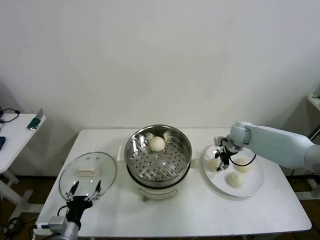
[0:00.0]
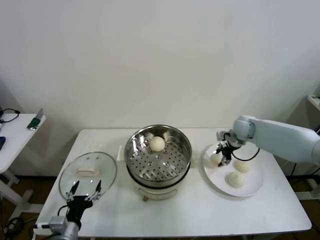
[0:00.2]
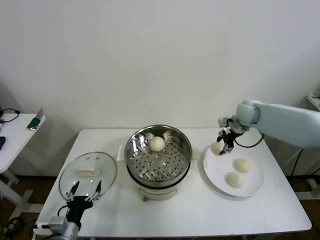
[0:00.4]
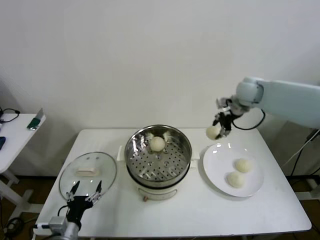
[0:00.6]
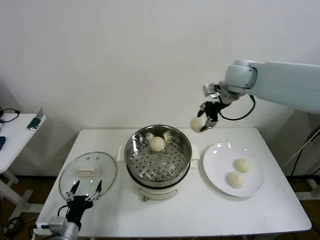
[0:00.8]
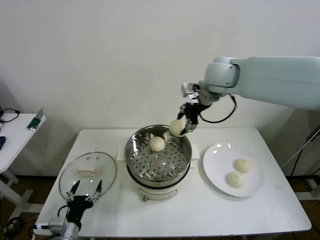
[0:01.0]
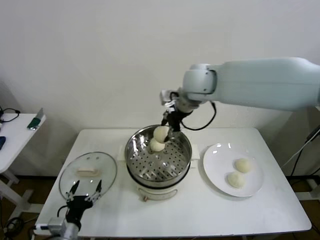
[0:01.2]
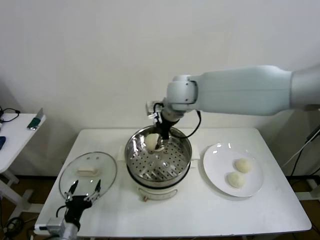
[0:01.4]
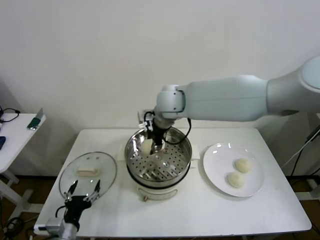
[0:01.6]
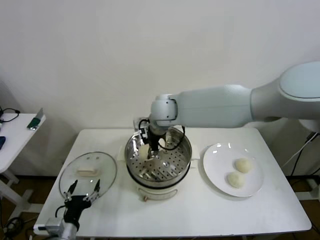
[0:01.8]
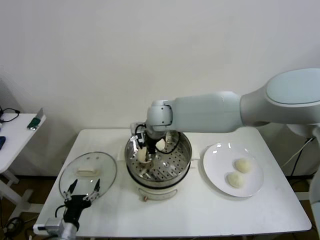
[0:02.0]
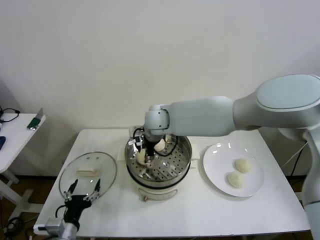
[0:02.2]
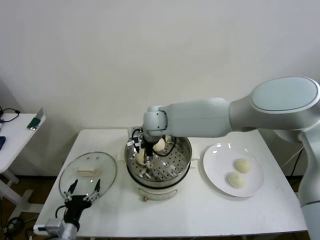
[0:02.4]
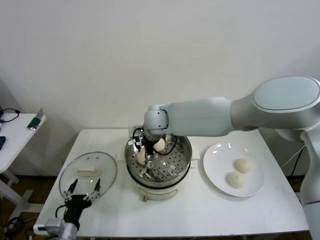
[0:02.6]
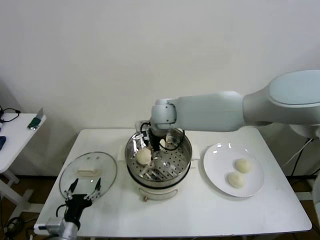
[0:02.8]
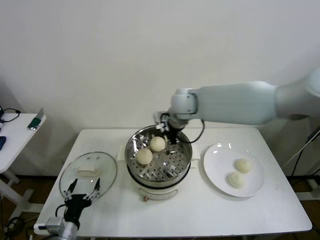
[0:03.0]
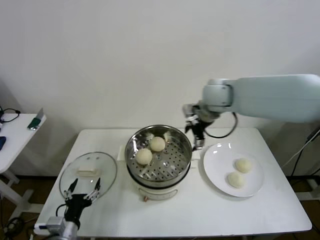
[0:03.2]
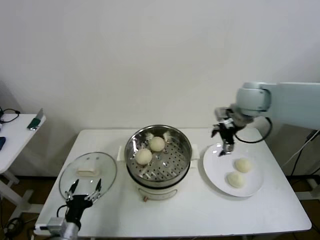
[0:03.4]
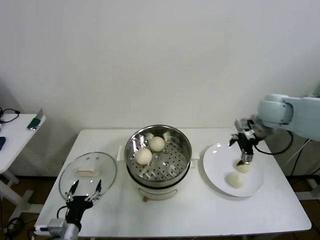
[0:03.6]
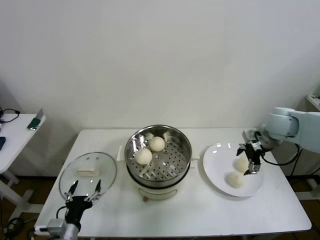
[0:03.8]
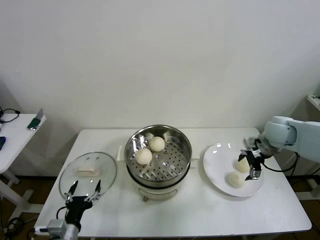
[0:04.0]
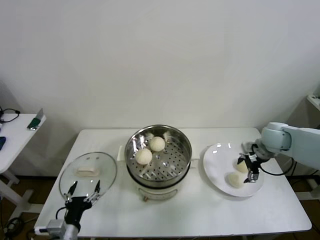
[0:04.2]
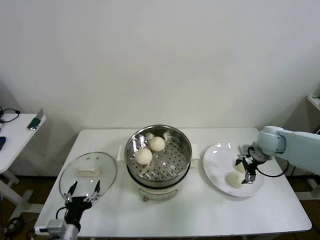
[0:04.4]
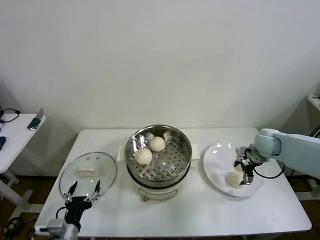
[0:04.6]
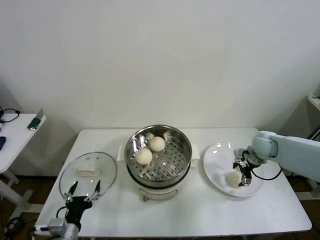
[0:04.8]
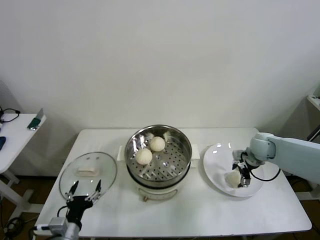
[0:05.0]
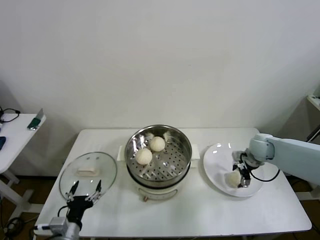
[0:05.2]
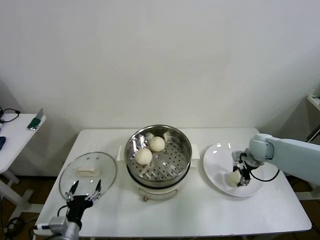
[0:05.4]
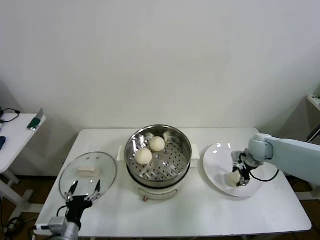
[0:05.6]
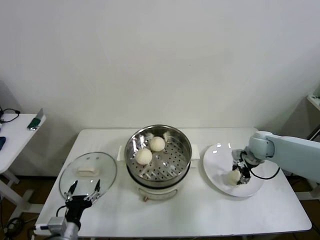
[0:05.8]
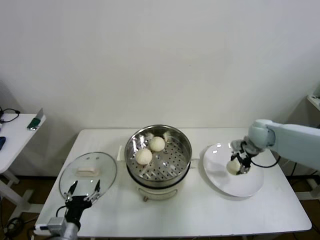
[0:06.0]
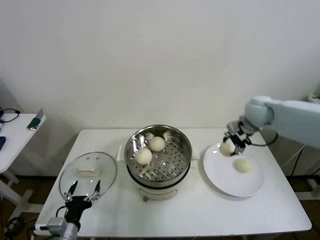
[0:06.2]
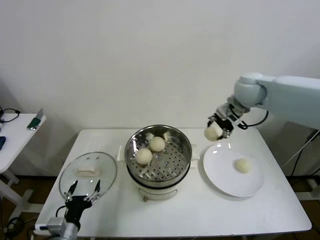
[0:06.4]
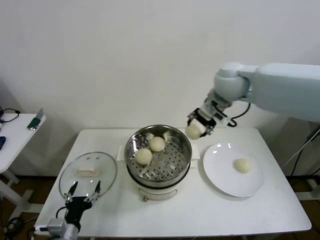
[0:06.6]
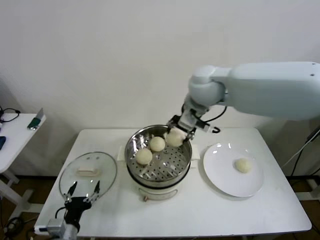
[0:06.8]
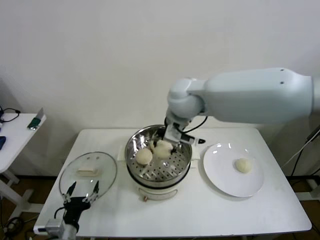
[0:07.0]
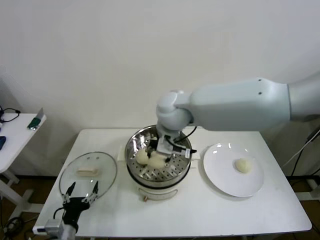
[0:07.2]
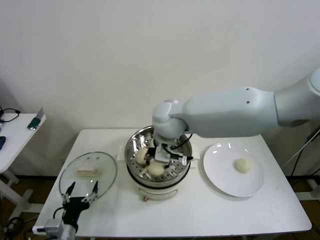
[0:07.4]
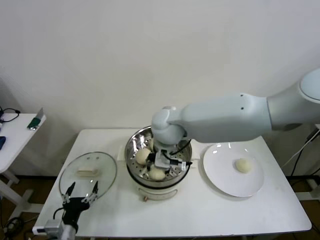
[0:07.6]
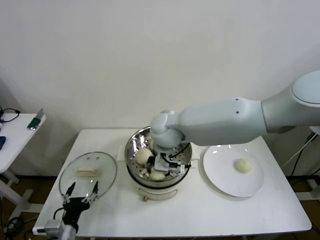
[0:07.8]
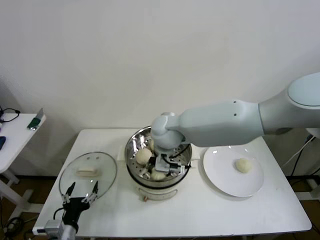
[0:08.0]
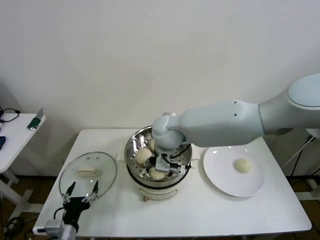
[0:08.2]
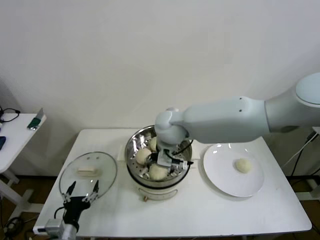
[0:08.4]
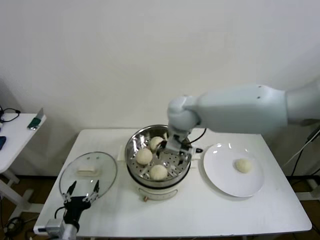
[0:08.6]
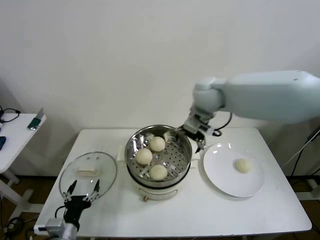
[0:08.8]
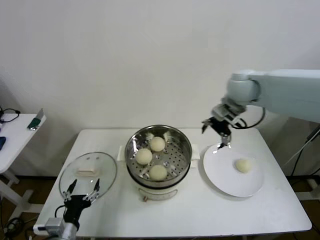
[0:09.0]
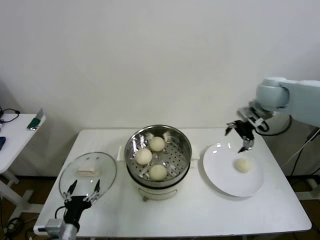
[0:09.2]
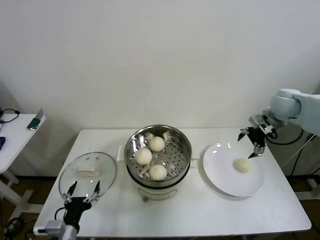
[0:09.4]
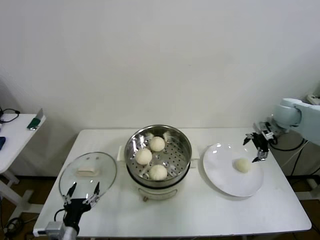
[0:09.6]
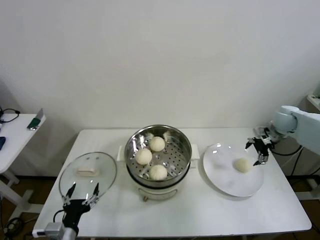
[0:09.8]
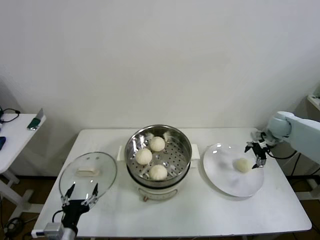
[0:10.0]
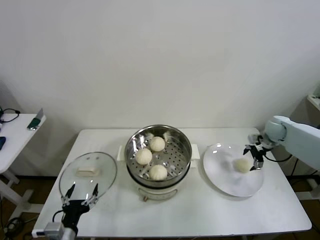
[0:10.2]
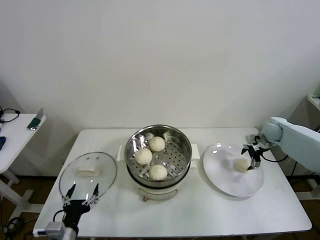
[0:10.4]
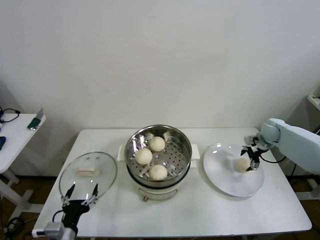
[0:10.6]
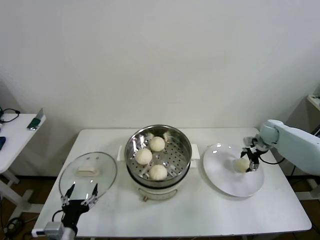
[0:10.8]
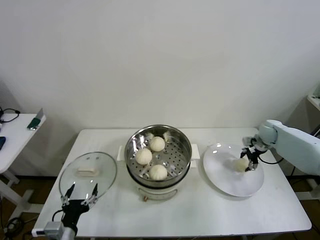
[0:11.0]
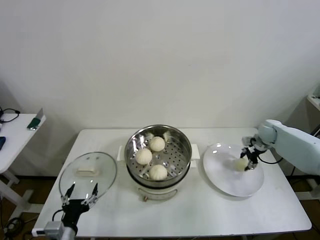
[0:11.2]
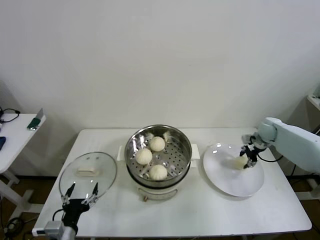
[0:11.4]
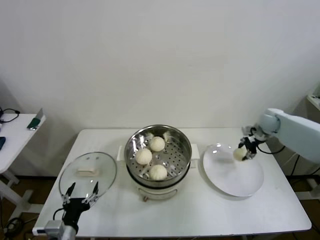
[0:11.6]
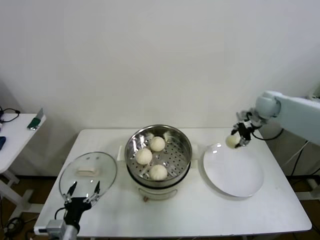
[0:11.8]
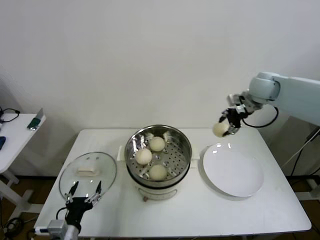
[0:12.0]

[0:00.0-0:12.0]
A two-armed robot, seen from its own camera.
Step, 0:00.0 to 0:02.6: Place the baozi on the steamer with right gripper.
Step, 0:02.8 to 0:05.6: Grasp the baozi in the plate with right gripper.
Step, 0:05.8 to 0:08.2: Place the baozi on the steamer with right gripper.
Step, 0:08.6 to 0:11.0: Grasp the baozi in the plate with right gripper.
0:00.0 to 0:01.6: The right gripper travels to the left and upward by roughly 35 cm.
0:01.6 to 0:03.0: The right gripper heads to the right, covering about 10 cm, and opens its fingers.
0:03.0 to 0:04.4: The right gripper goes roughly 30 cm to the right and downward.
0:04.4 to 0:06.0: The right gripper changes place by some 5 cm, and closes its fingers.
0:06.0 to 0:07.6: The right gripper heads to the left, covering some 35 cm.
0:07.6 to 0:09.0: The right gripper shifts roughly 25 cm to the right, and opens its fingers.
0:09.0 to 0:10.4: The right gripper goes approximately 30 cm downward and to the right.
0:10.4 to 0:12.0: The right gripper is displaced upward and to the left by about 25 cm, and closes up.

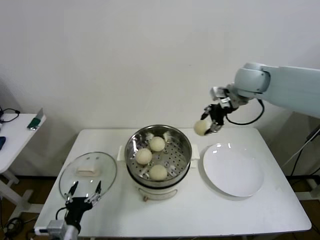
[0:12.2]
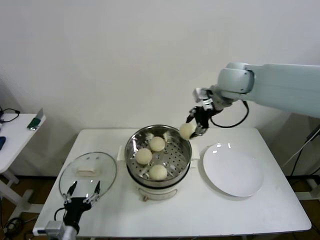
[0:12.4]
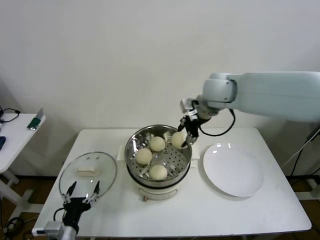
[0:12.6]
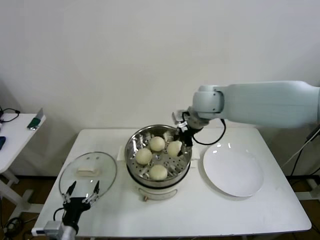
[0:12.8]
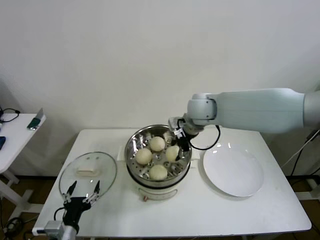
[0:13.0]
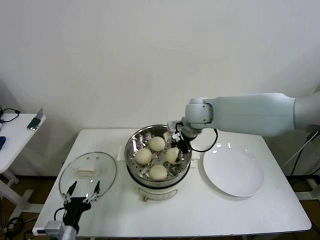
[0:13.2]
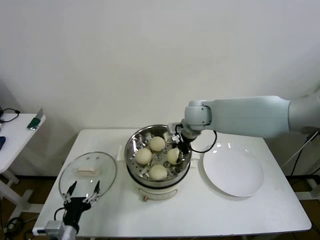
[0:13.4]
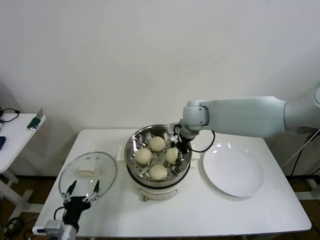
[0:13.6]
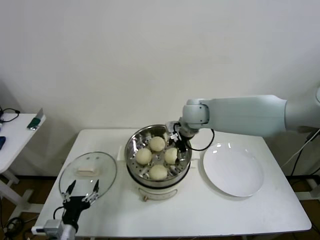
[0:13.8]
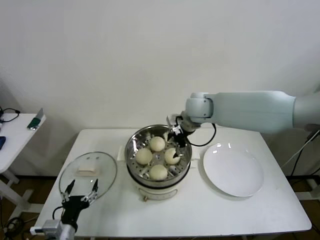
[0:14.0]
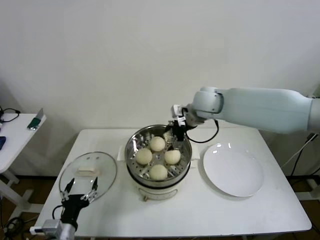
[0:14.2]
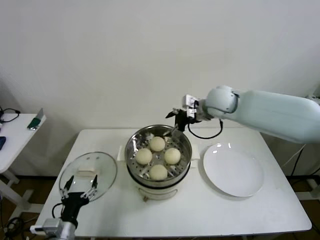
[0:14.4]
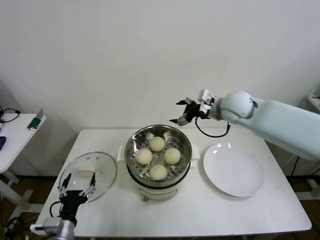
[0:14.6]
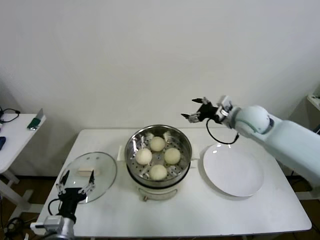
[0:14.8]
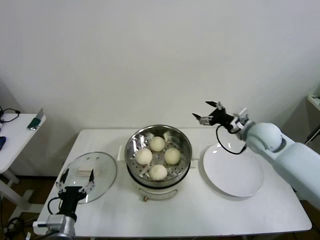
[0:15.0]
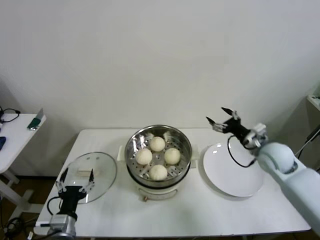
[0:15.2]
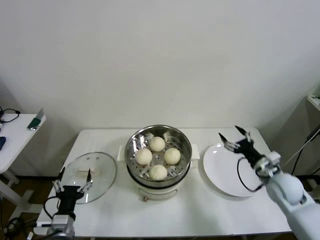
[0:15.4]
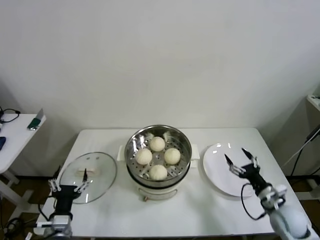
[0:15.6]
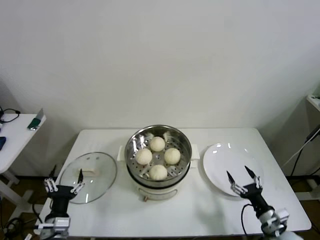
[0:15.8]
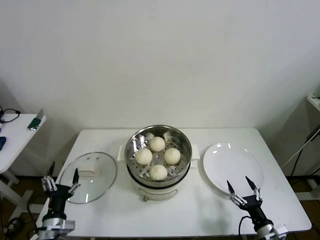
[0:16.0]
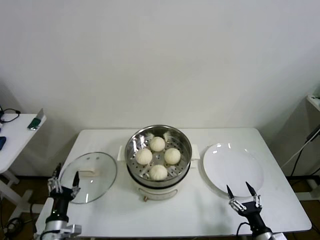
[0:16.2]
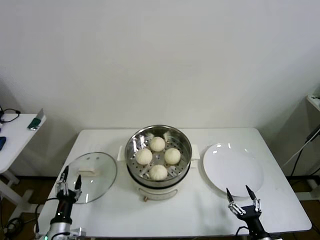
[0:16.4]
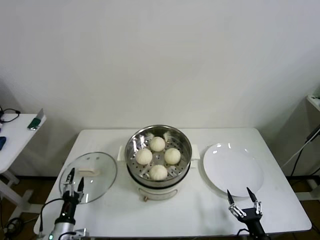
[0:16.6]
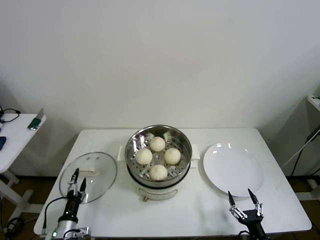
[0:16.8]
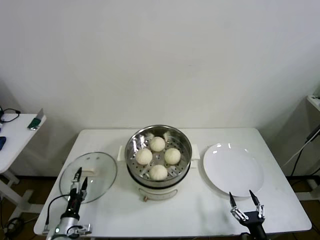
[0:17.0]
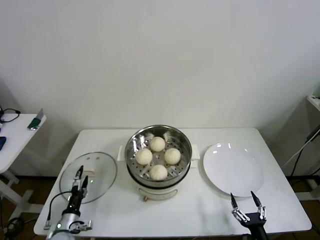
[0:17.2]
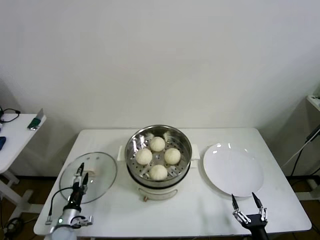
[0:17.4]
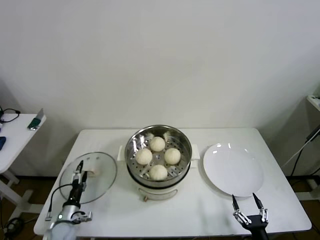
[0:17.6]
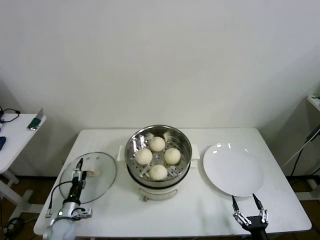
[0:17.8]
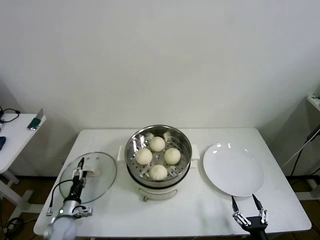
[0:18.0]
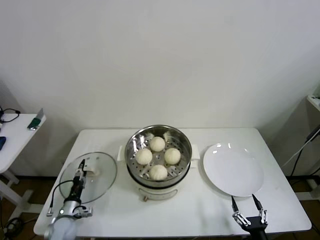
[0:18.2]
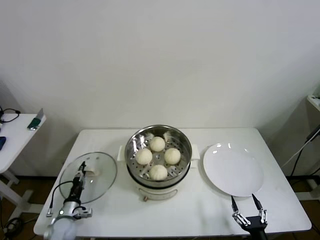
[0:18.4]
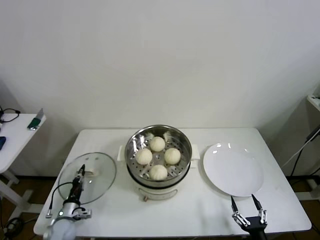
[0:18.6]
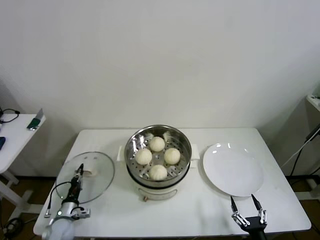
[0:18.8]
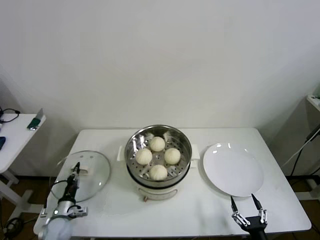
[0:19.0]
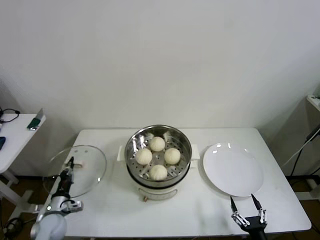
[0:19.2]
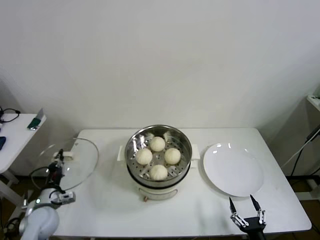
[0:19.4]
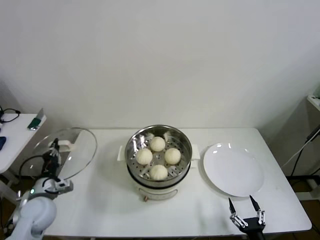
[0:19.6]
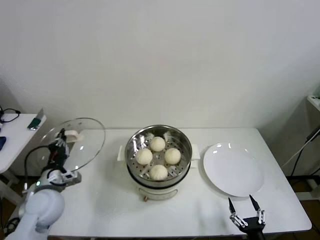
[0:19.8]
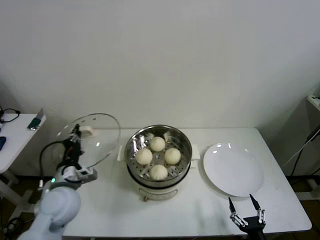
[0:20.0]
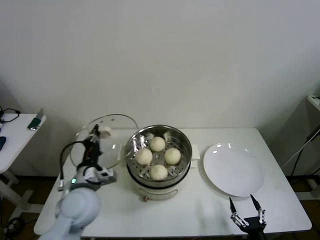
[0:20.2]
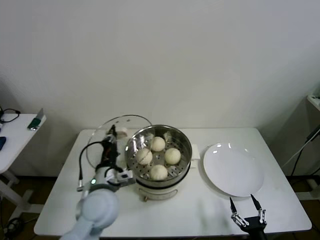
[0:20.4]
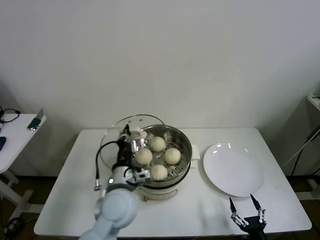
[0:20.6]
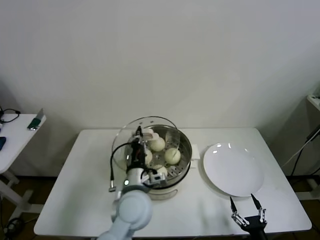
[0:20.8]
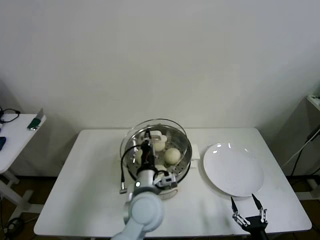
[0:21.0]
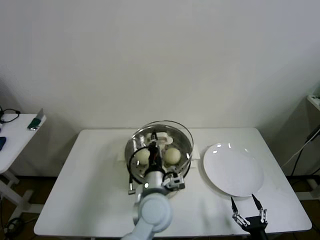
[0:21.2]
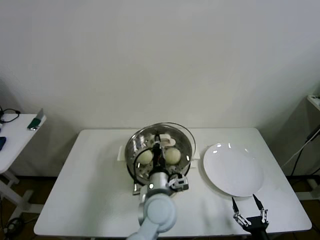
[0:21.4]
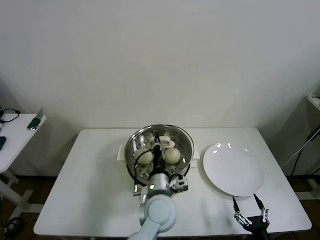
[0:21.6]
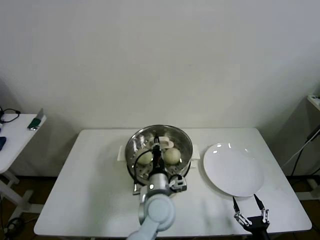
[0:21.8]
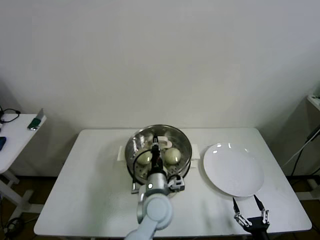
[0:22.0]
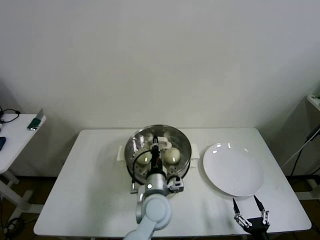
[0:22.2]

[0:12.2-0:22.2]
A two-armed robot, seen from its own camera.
Step, 0:12.2 to 0:13.8: Place the baozi on the steamer with right gripper.
Step, 0:14.0 to 0:18.6: Grasp the pot lid with left gripper.
0:12.2 to 0:13.6: The right gripper shifts some 20 cm to the left and downward.
0:13.6 to 0:15.0: The right gripper moves to the right, about 20 cm, and opens up.
0:15.0 to 0:16.4: The right gripper travels backward and downward by roughly 40 cm, while the left gripper heads downward, covering some 10 cm.
0:16.4 to 0:18.0: The left gripper is displaced forward and downward by roughly 10 cm.
0:18.0 to 0:19.4: The left gripper heads upward, covering roughly 10 cm, and closes.
0:19.4 to 0:20.8: The left gripper heads to the right and upward, covering about 35 cm.
0:20.8 to 0:22.2: The left gripper heads to the right and downward, covering roughly 10 cm.
